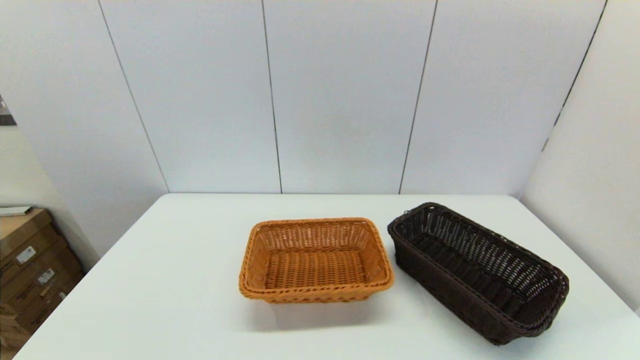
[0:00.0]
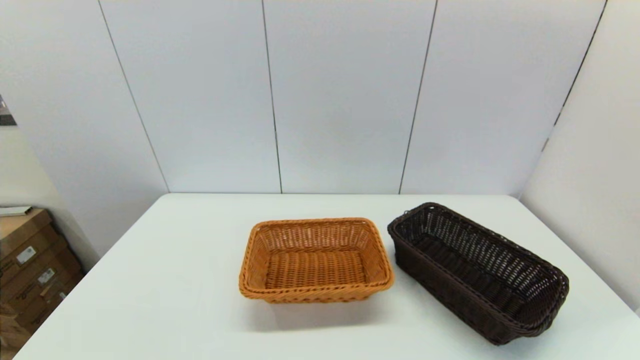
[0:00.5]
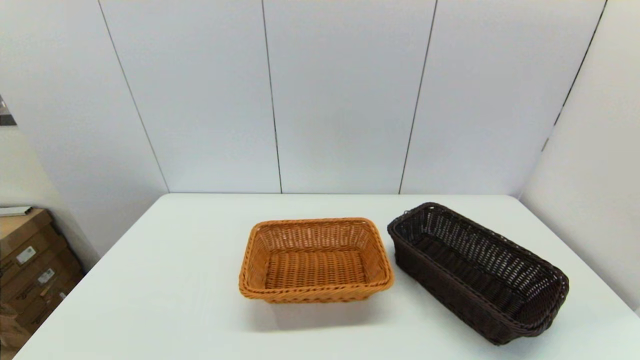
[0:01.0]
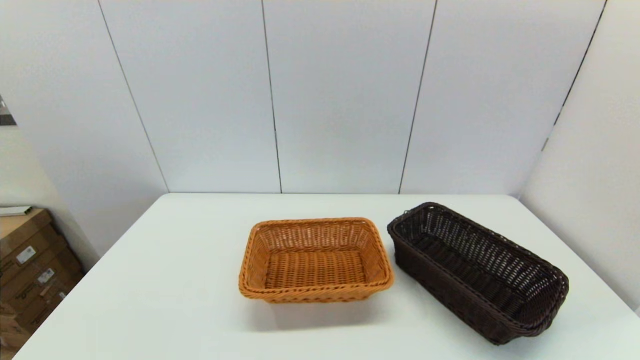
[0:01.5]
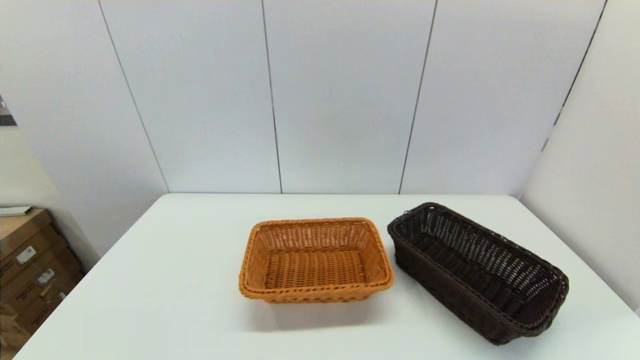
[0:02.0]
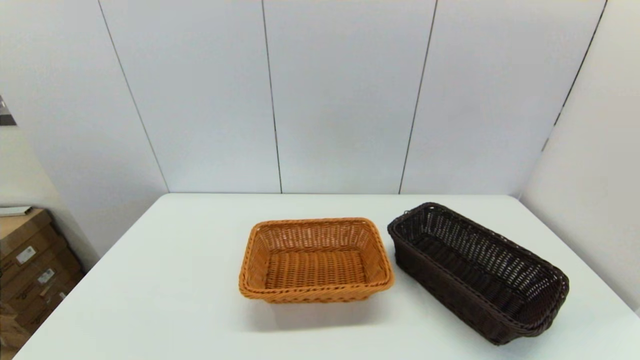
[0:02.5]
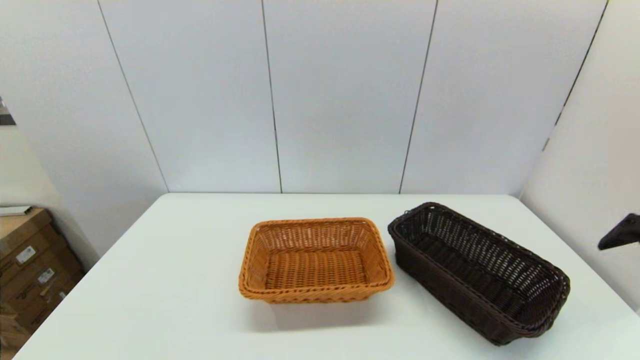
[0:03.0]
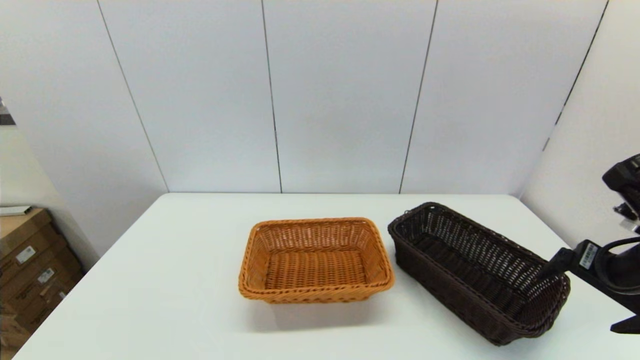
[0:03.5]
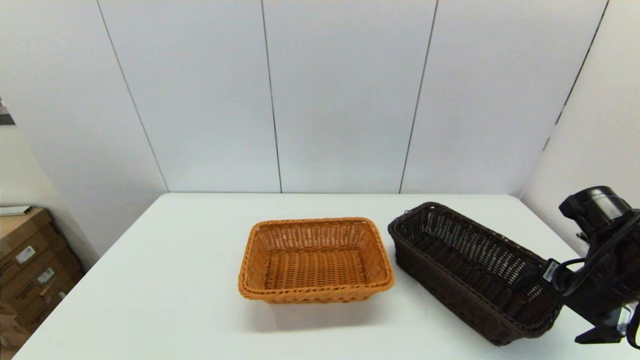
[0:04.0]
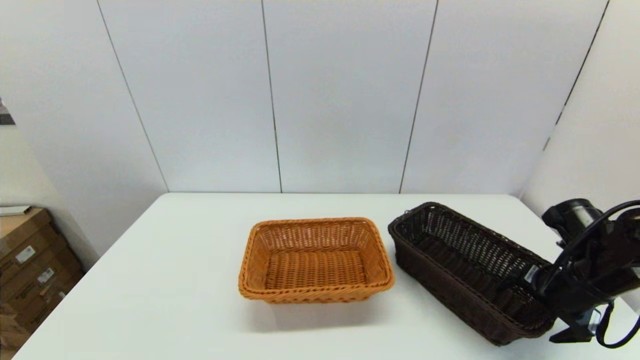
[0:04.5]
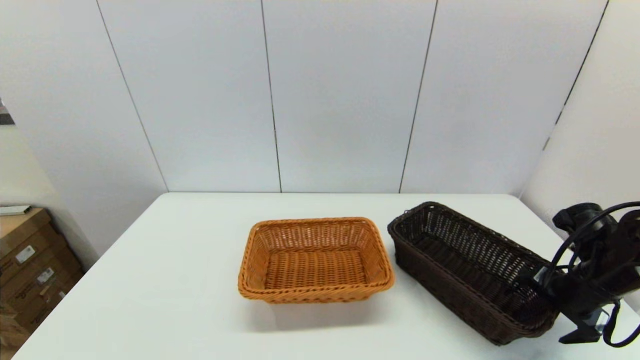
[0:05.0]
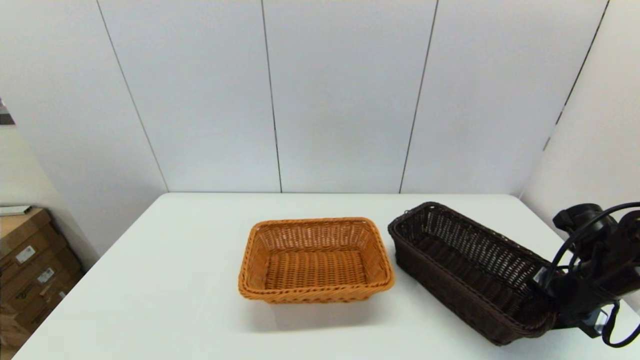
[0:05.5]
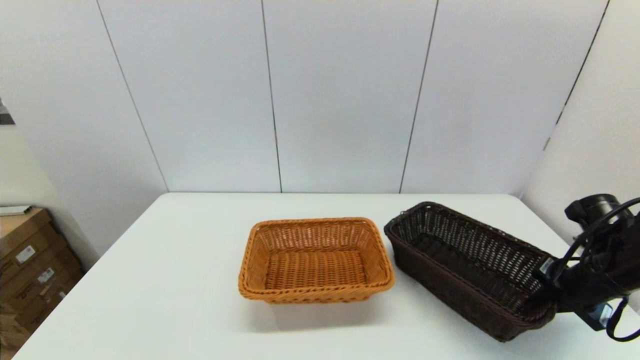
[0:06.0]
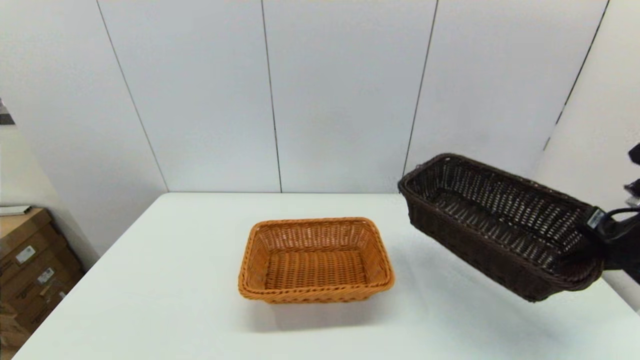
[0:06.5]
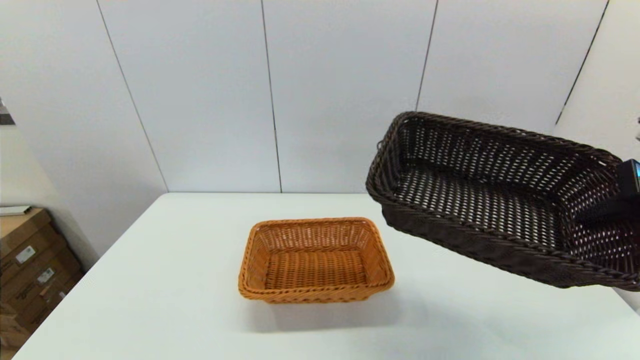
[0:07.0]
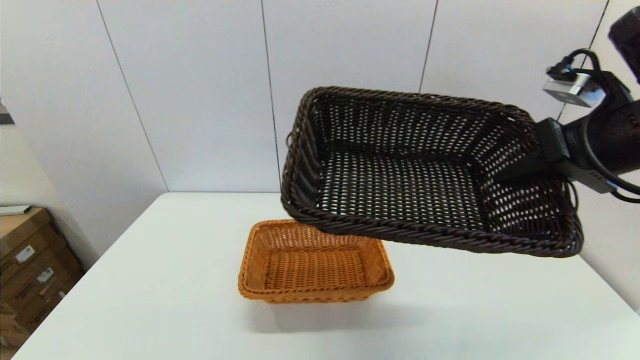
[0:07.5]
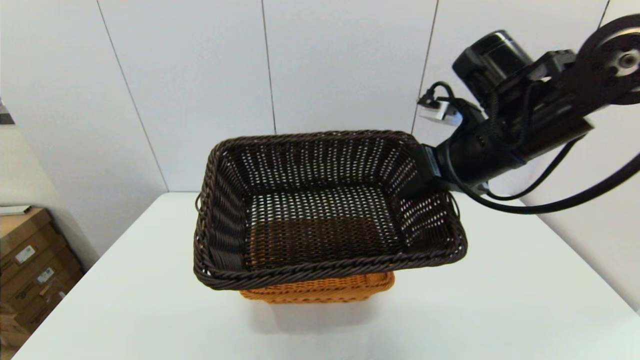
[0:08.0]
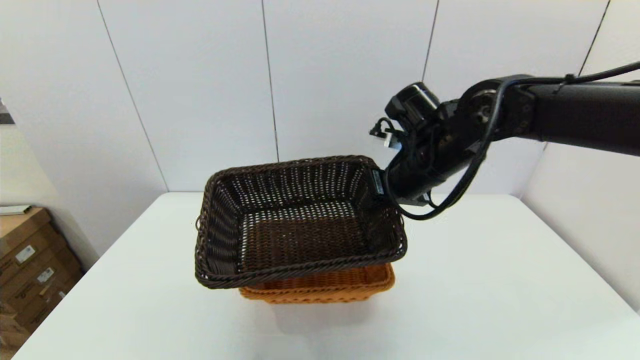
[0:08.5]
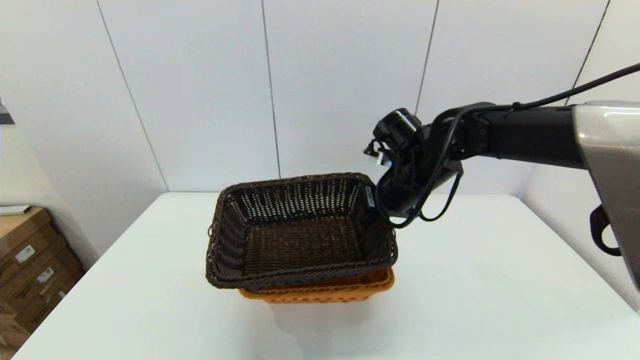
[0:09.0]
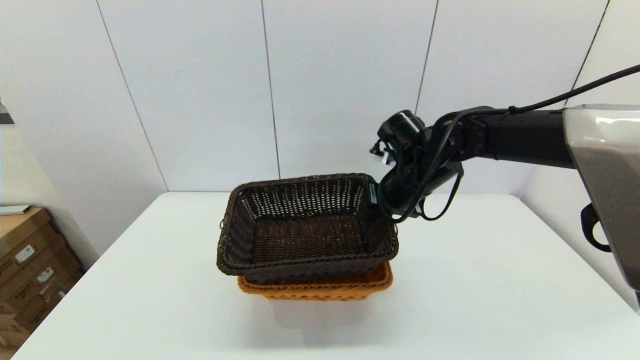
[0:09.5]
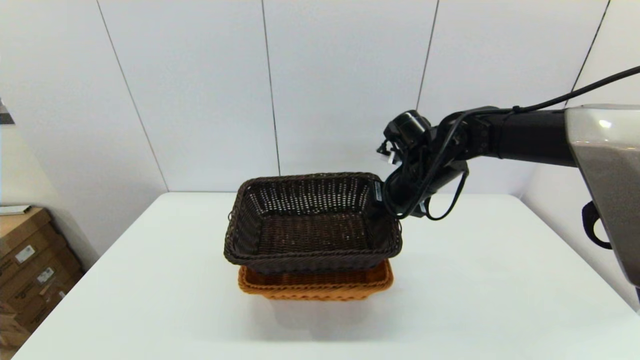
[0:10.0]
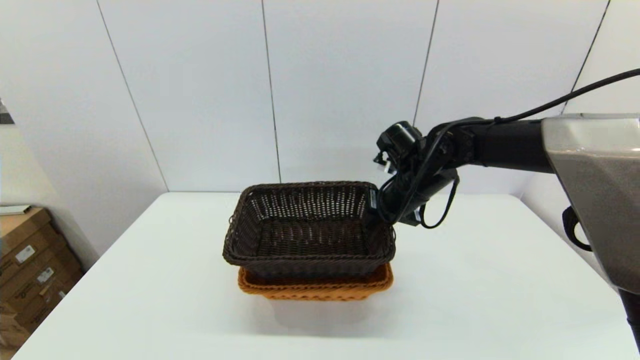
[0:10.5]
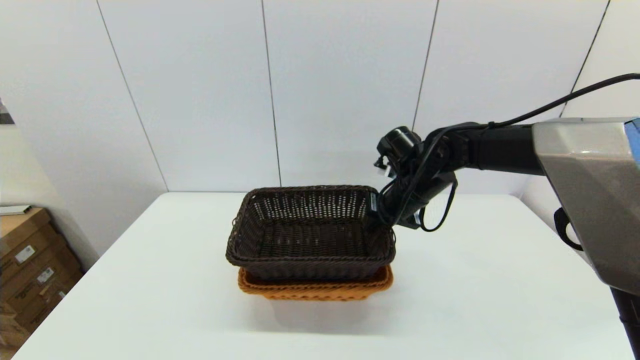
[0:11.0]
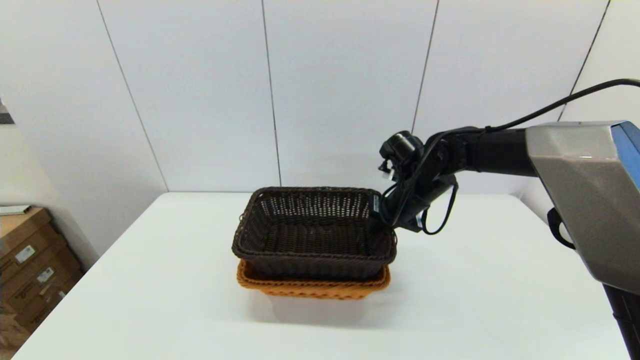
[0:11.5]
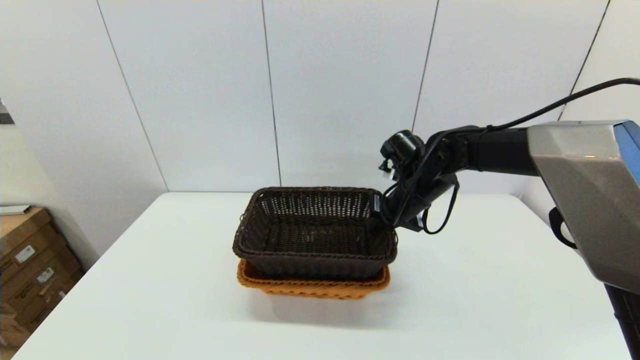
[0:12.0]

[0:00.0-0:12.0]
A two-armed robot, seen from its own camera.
Task of the whole recording: stack a basket on top of another basket.
Step, 0:00.0 to 0:05.5: Grasp the dark basket with the right gripper.
0:02.0 to 0:04.0: The right gripper shifts approximately 25 cm forward.
0:04.0 to 0:06.0: The right gripper ends up approximately 5 cm from where it was, and closes up.
0:06.0 to 0:08.0: The right gripper shifts roughly 25 cm to the left and upward.
0:08.0 to 0:10.0: The right gripper shifts about 15 cm downward and forward.
0:10.0 to 0:12.0: There are only small adjustments of the grippers.

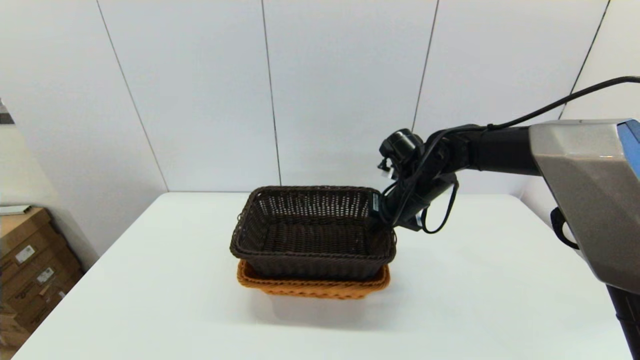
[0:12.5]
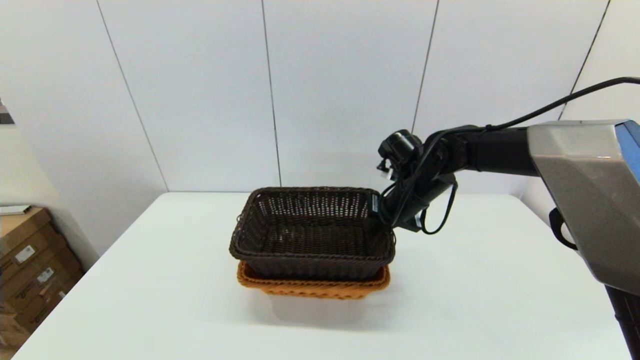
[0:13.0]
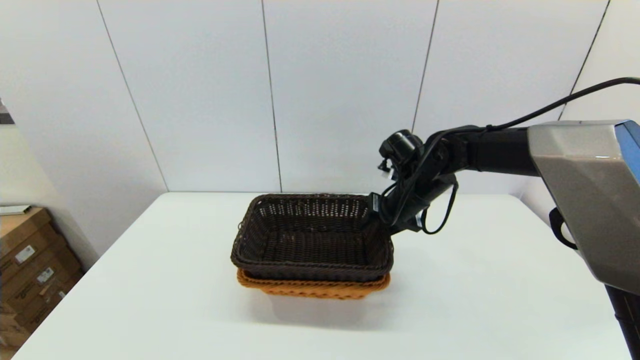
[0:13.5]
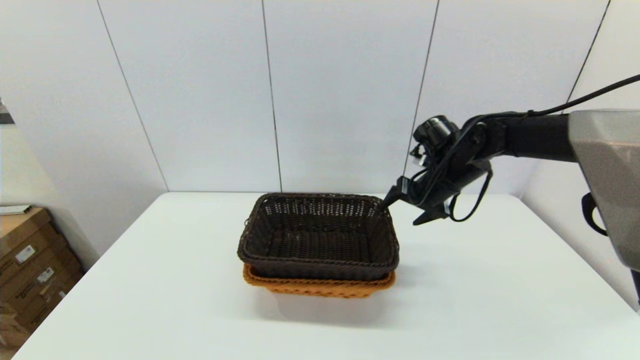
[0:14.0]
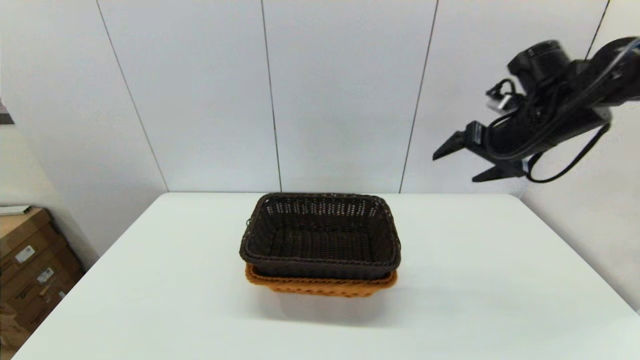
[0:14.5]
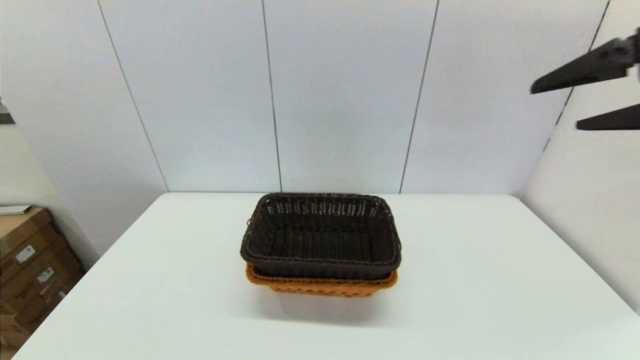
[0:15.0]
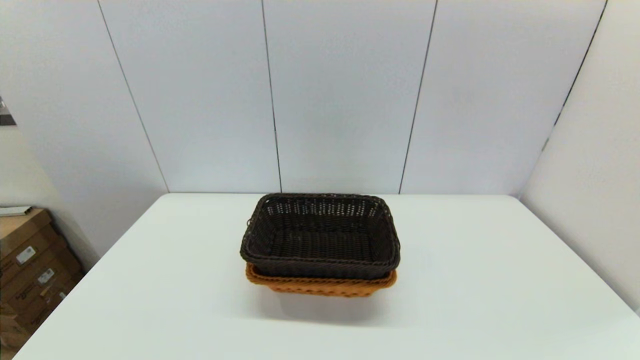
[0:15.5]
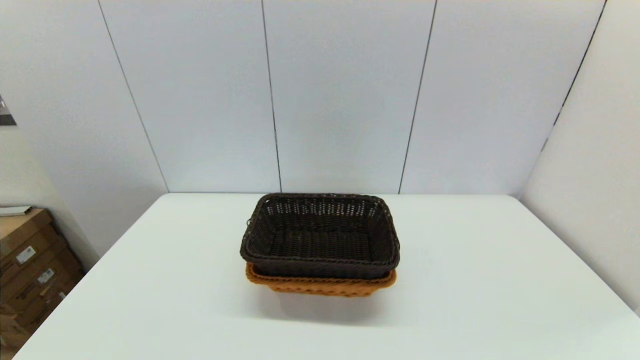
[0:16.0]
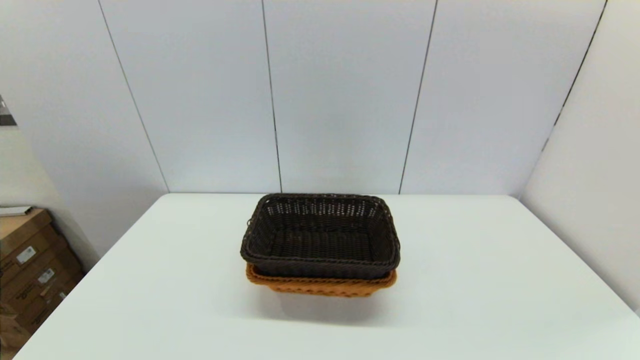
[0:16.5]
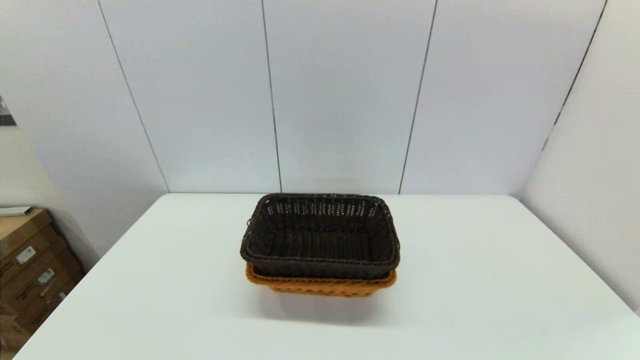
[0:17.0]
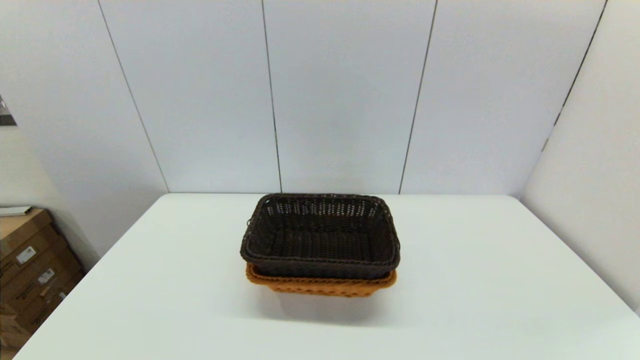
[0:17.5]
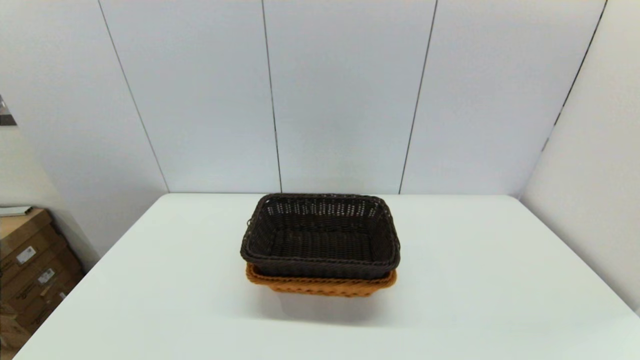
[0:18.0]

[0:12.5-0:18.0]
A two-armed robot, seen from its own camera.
Task of the whole recording: stack a basket on top of another basket.
0:12.5 to 0:14.5: The right gripper shifts roughly 20 cm upward and to the right, and opens.
0:14.5 to 0:16.0: The right gripper is displaced backward by roughly 50 cm.

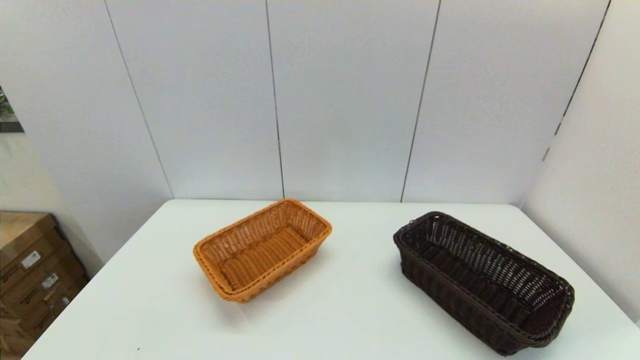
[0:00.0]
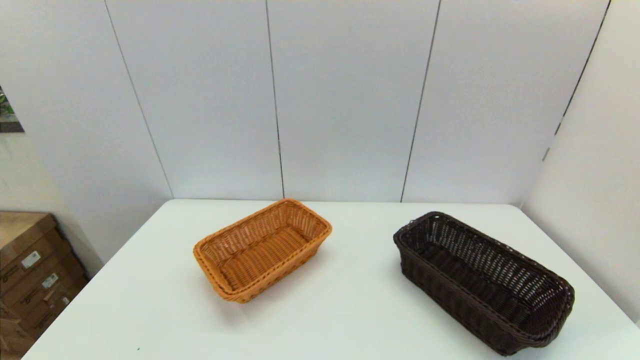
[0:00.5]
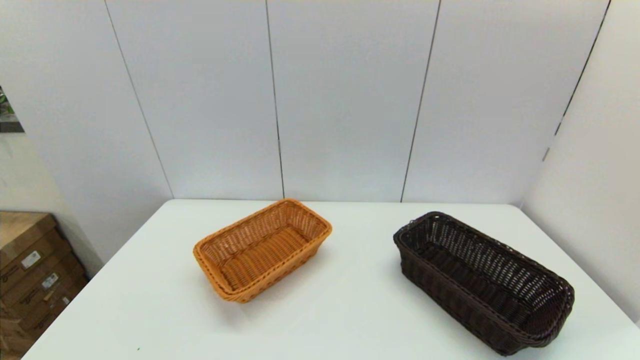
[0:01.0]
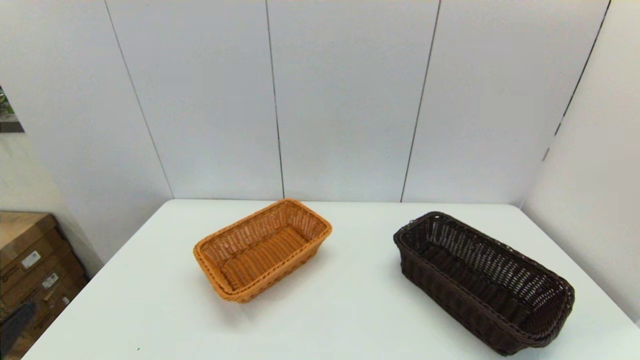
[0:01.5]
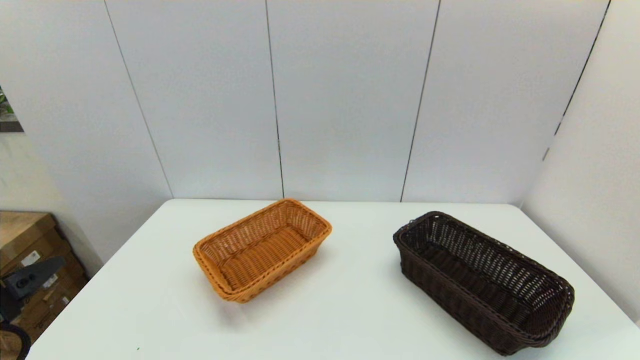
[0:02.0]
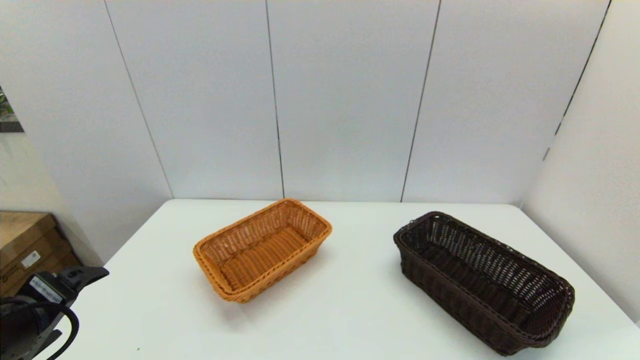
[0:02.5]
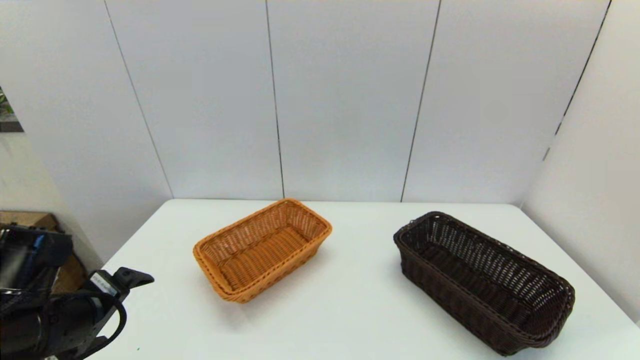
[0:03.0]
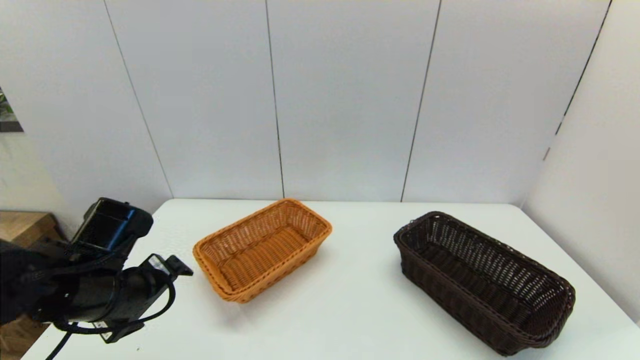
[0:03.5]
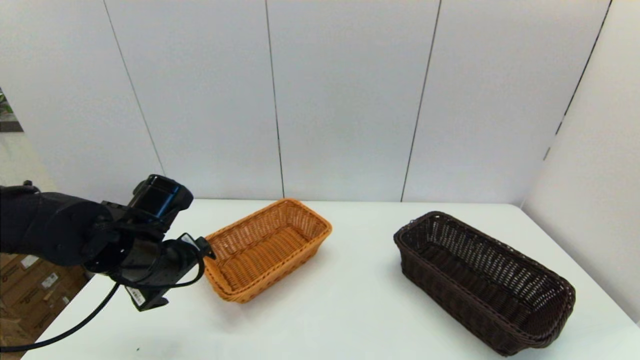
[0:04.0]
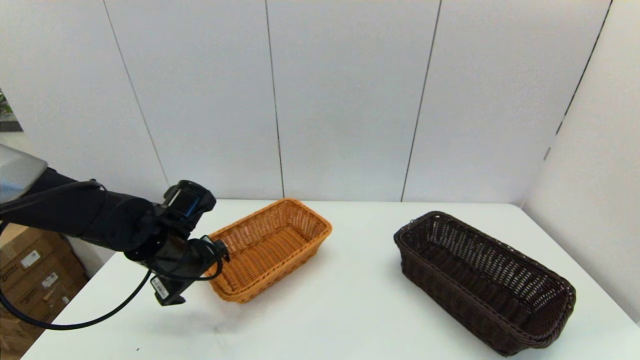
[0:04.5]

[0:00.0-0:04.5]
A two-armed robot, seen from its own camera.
Task of the whole recording: stack a basket on top of another basket.
0:02.0 to 0:04.5: The left gripper shifts about 25 cm forward, downward and to the right.
